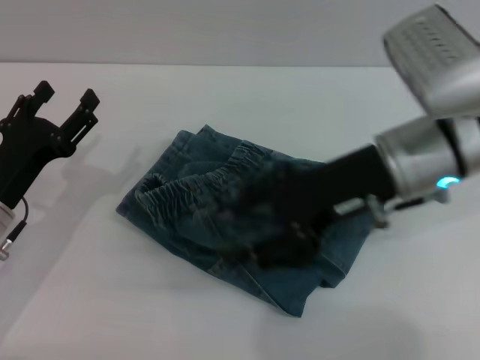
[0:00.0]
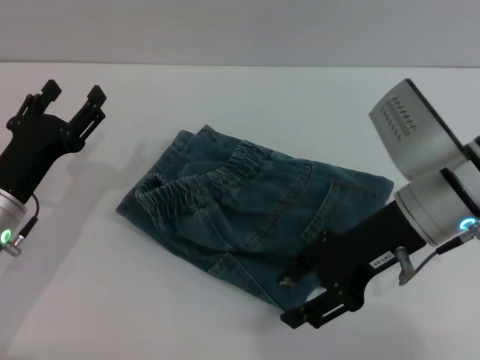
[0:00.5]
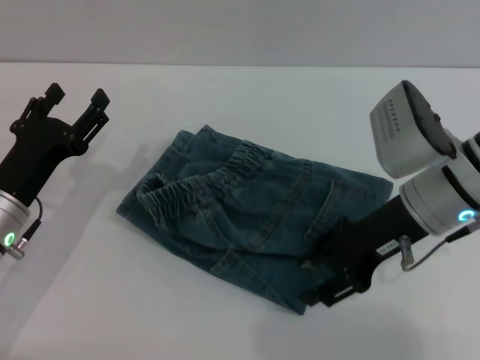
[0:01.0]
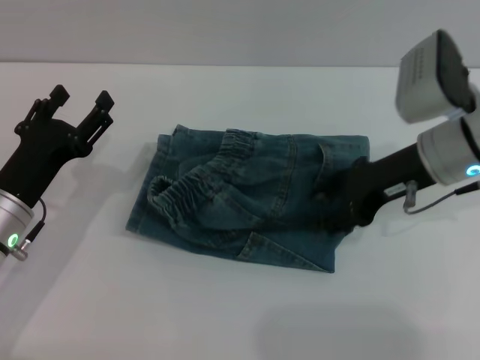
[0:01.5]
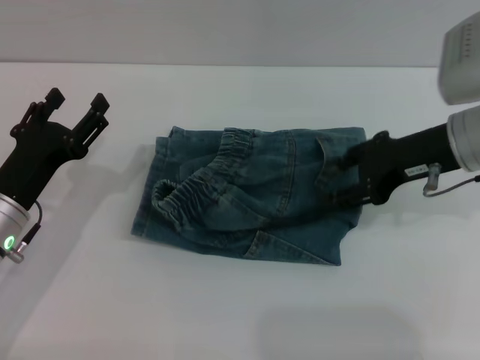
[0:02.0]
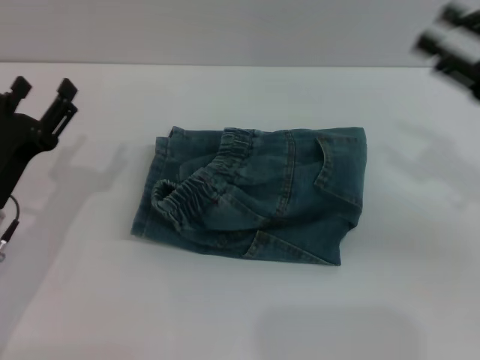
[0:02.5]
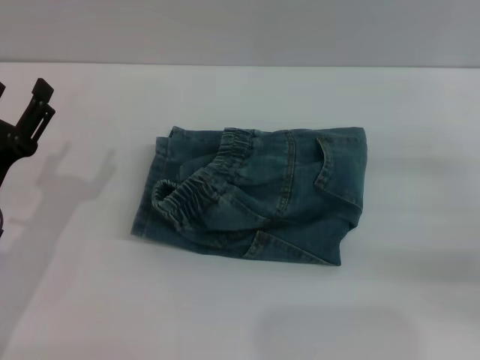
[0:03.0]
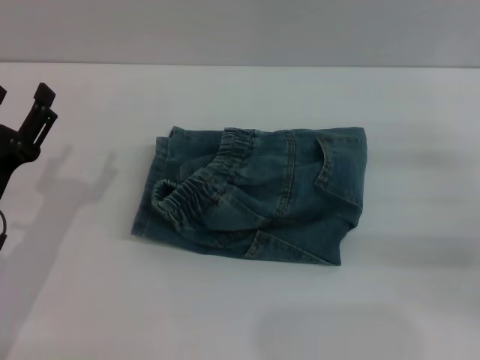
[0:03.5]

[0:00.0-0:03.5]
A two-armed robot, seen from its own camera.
0:00.0 to 0:02.0: The right gripper shifts roughly 5 cm to the right.
0:02.0 to 0:03.5: The right gripper goes approximately 15 cm to the right, downward and backward.
